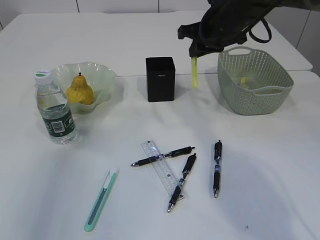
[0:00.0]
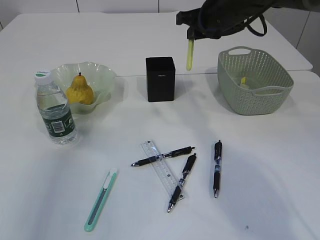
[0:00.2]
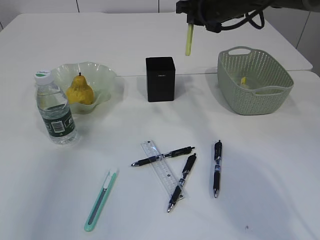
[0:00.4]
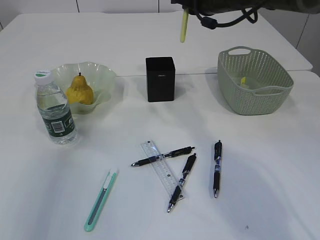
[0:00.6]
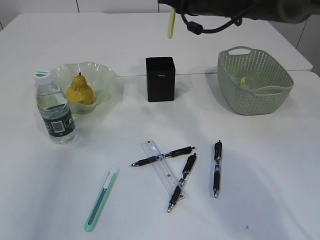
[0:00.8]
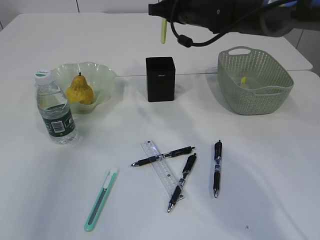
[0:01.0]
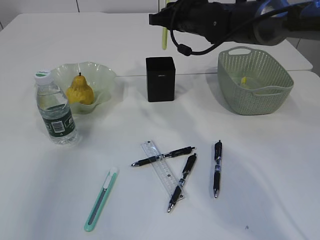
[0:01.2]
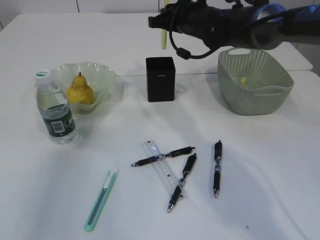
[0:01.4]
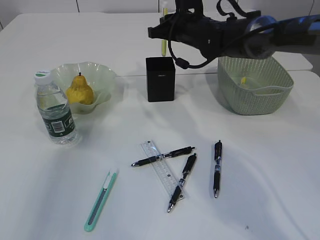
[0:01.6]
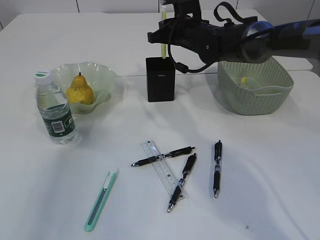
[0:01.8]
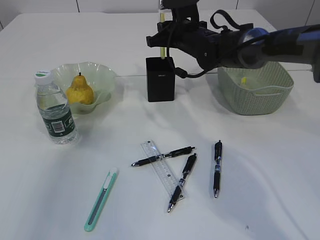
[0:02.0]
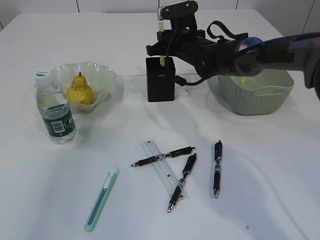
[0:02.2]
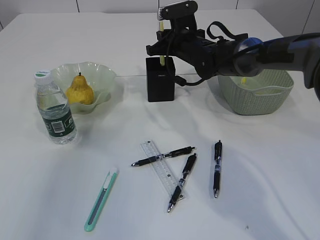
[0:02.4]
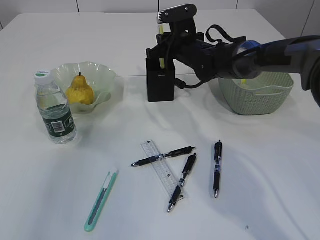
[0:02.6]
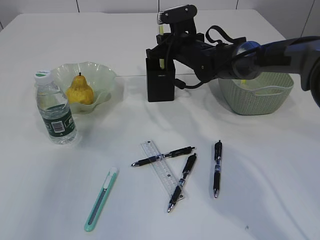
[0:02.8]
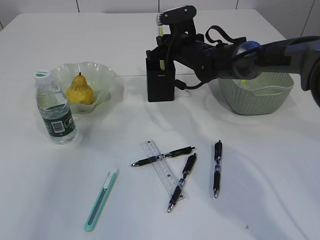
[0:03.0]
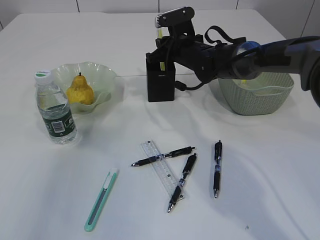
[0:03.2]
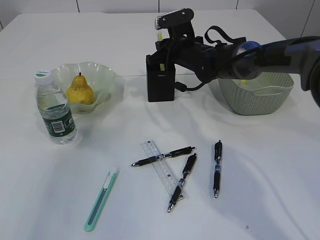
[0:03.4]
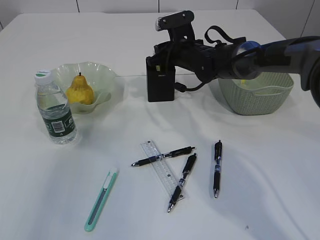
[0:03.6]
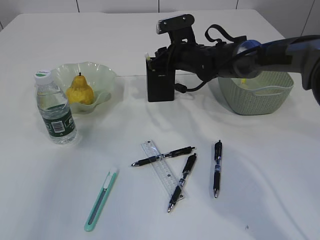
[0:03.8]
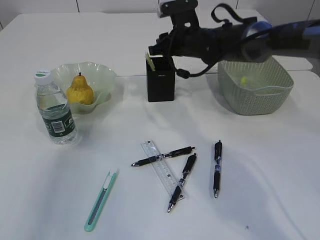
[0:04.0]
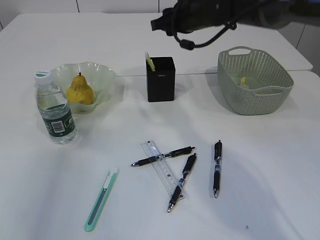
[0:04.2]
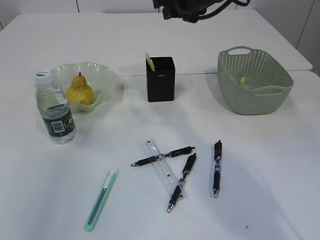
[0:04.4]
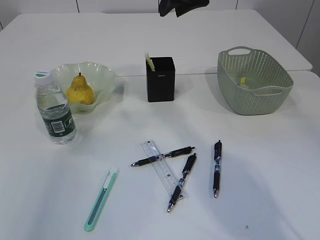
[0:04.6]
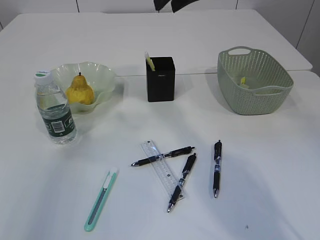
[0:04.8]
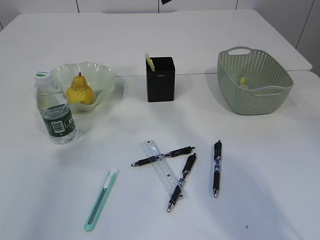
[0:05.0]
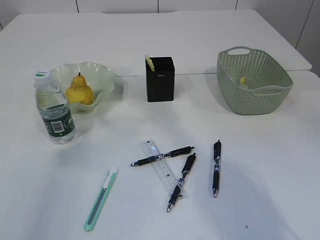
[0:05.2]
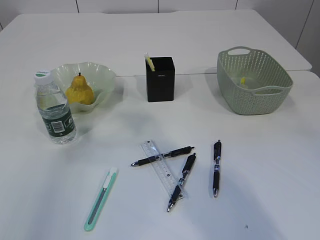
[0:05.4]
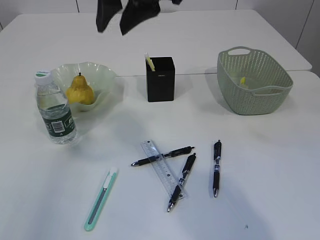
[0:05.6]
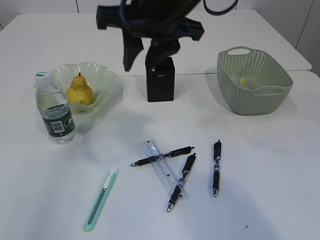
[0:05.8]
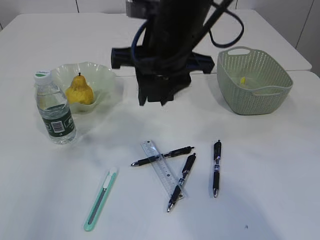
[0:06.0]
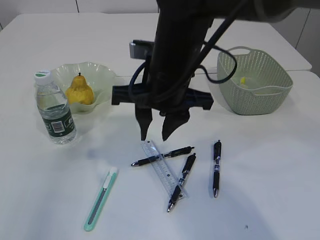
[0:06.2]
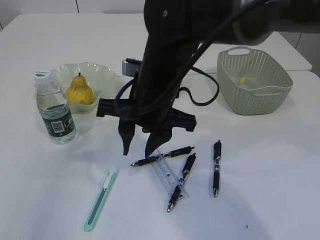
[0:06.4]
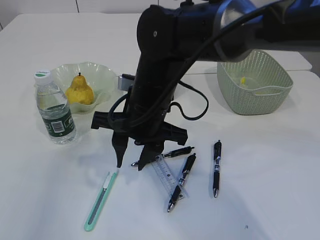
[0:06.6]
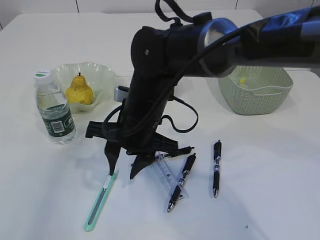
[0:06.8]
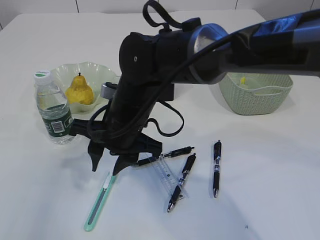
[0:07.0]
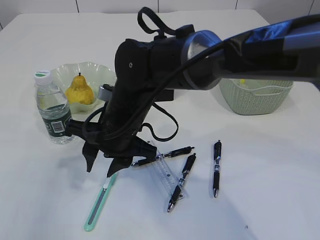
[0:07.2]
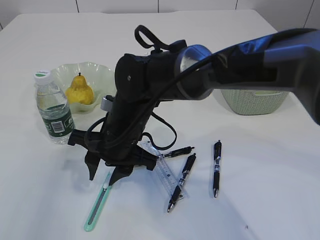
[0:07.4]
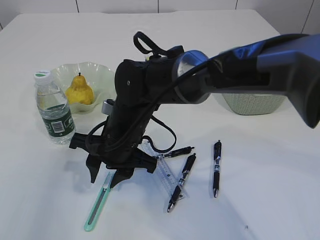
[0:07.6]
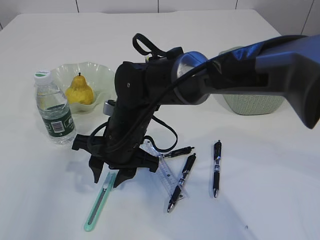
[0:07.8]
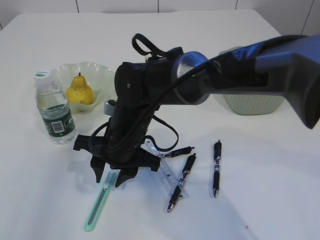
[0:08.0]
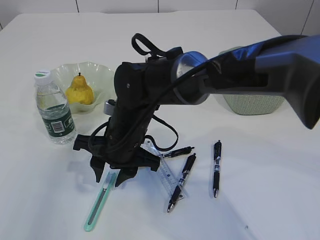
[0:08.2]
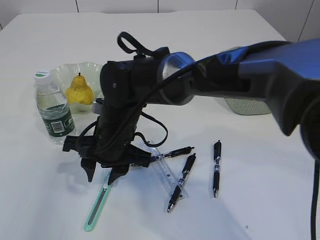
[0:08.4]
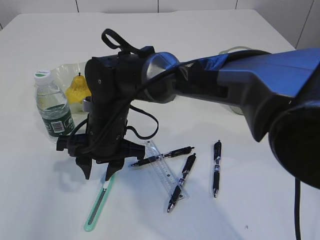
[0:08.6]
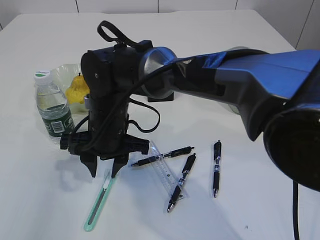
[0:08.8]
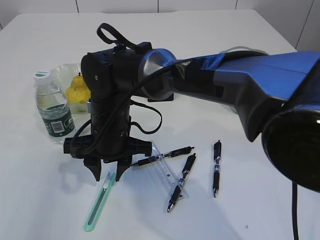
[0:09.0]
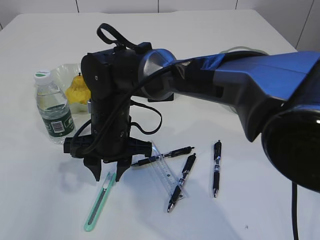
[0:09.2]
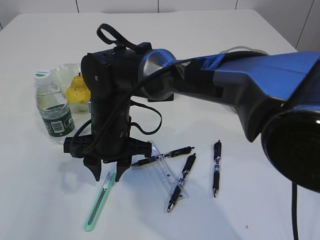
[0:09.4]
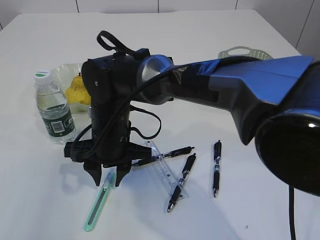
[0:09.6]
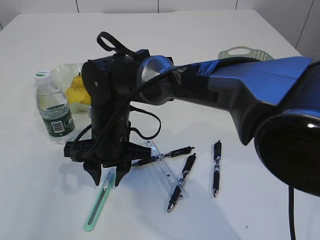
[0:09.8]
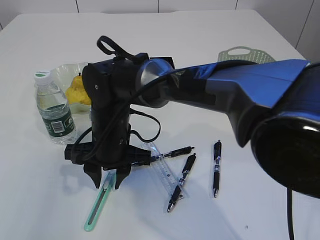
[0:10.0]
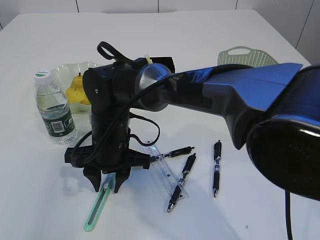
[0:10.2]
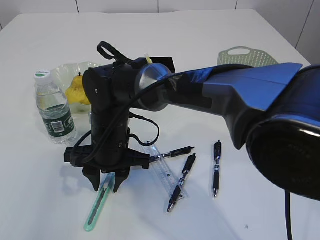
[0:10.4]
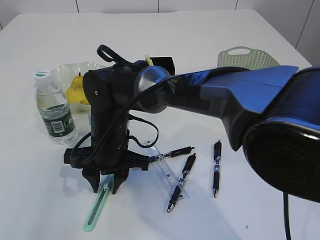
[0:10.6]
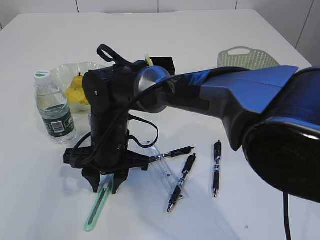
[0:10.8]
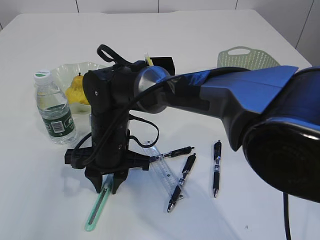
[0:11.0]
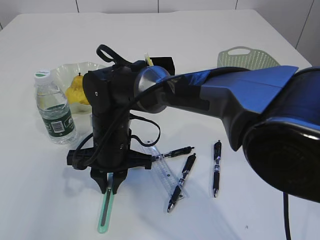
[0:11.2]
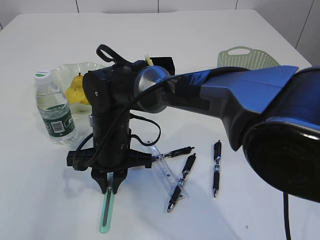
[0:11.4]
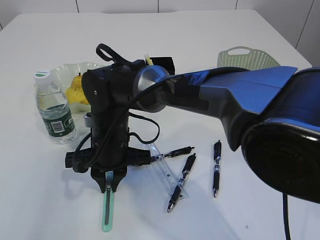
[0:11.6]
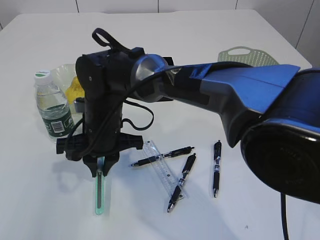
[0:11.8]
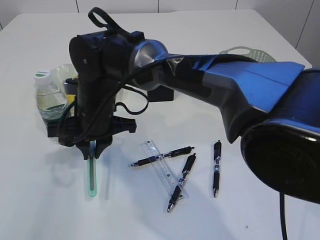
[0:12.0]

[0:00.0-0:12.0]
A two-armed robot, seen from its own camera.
Step, 0:00.0 to 0:04.2: place the yellow knife into the pen holder.
0:00.0 to 0:01.6: The right gripper goes approximately 5 cm to the left and forward.
0:01.6 to 0:03.0: The right gripper goes about 5 cm downward.
0:03.0 to 0:04.4: The right gripper shifts about 15 cm upward, and opens.
0:04.4 to 0:06.0: The right gripper is displaced backward and to the left by some 15 cm.
0:06.0 to 0:07.6: The right gripper moves downward and to the left, some 20 cm.
0:09.0 to 0:10.4: The grippers stay close to where they were, moving slightly.
0:10.4 to 0:12.0: The right gripper changes place by roughly 5 cm, and closes its fingers.

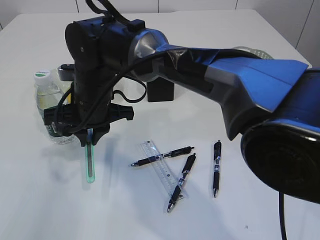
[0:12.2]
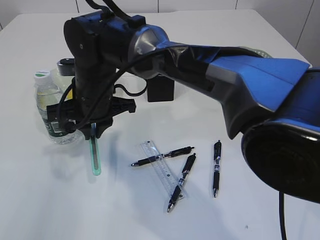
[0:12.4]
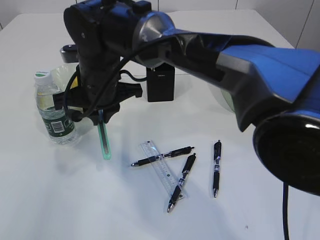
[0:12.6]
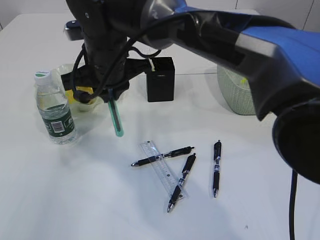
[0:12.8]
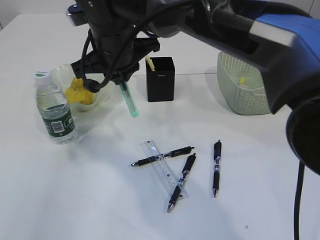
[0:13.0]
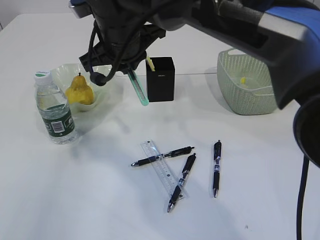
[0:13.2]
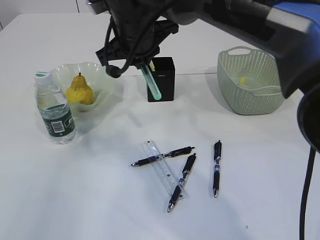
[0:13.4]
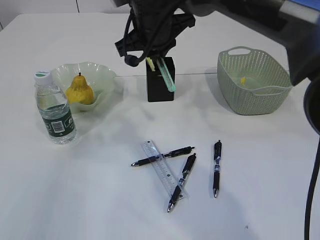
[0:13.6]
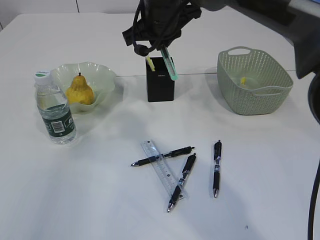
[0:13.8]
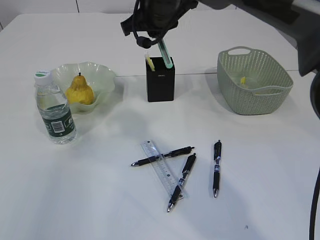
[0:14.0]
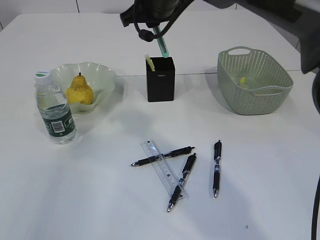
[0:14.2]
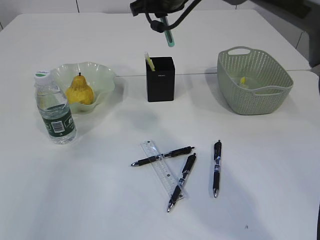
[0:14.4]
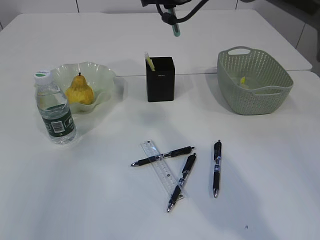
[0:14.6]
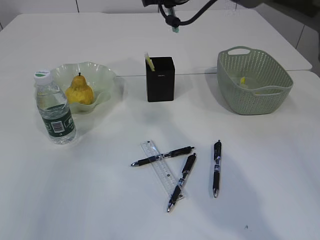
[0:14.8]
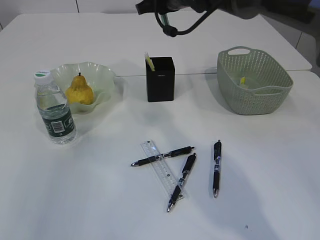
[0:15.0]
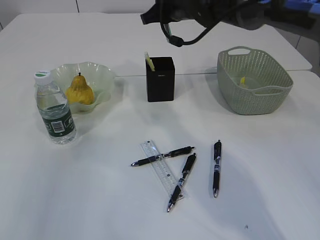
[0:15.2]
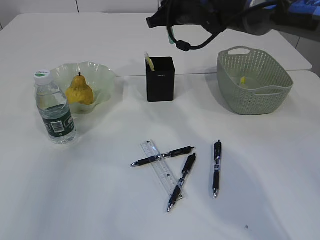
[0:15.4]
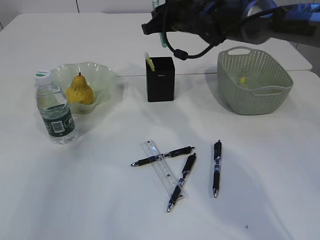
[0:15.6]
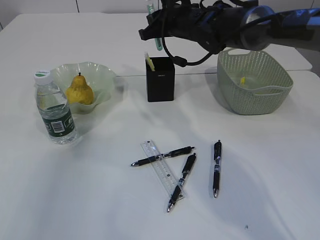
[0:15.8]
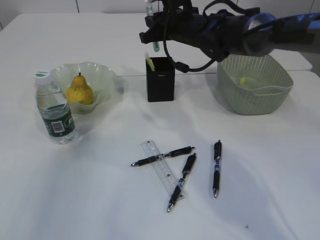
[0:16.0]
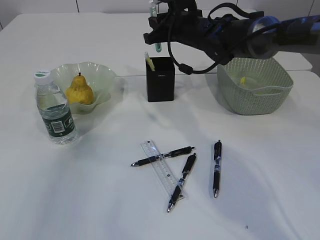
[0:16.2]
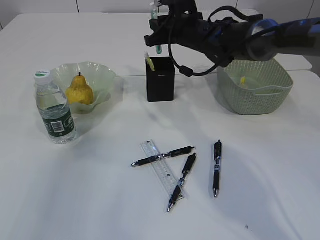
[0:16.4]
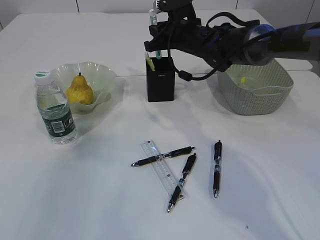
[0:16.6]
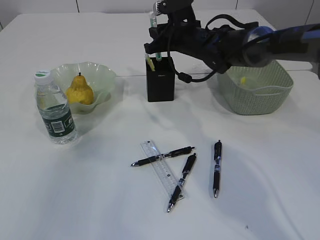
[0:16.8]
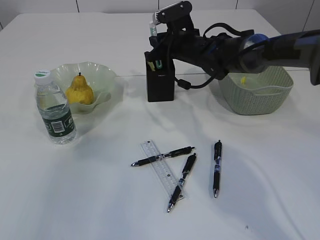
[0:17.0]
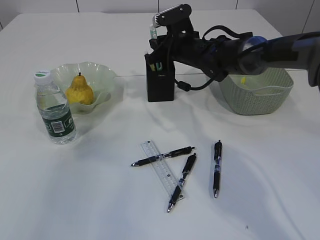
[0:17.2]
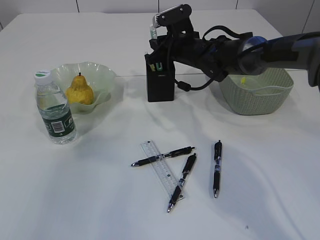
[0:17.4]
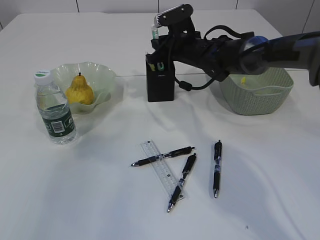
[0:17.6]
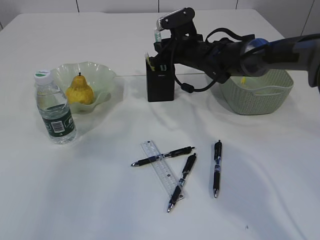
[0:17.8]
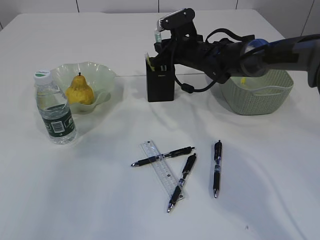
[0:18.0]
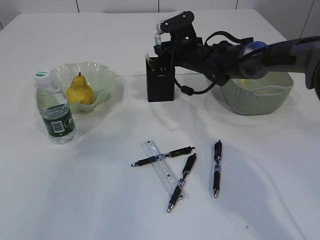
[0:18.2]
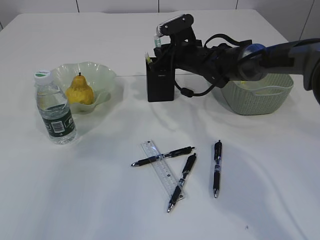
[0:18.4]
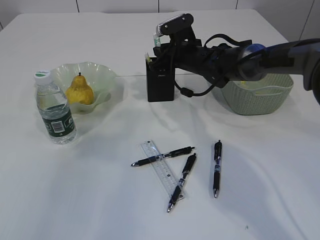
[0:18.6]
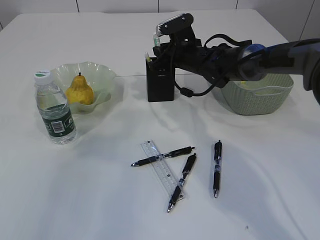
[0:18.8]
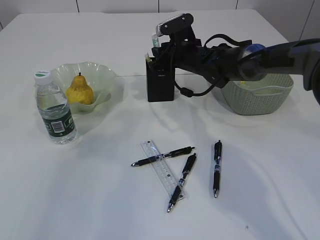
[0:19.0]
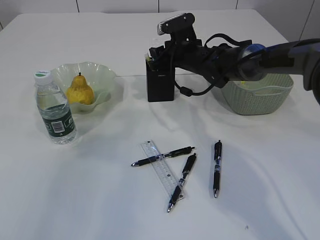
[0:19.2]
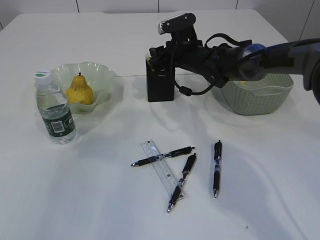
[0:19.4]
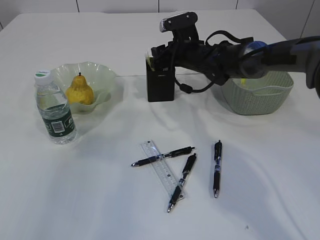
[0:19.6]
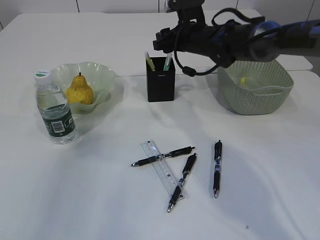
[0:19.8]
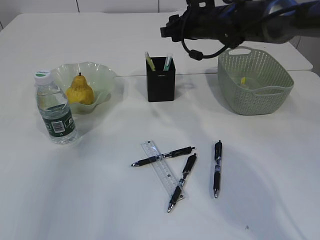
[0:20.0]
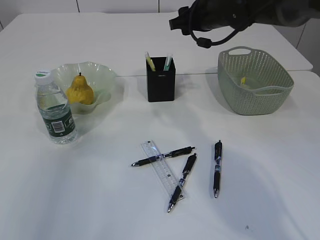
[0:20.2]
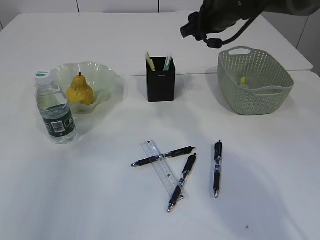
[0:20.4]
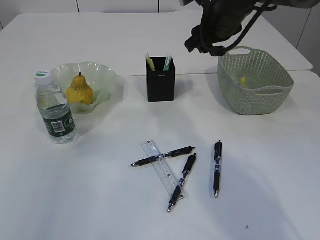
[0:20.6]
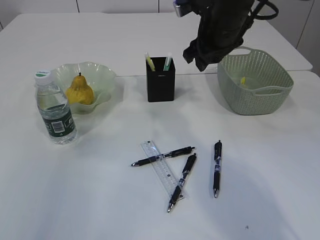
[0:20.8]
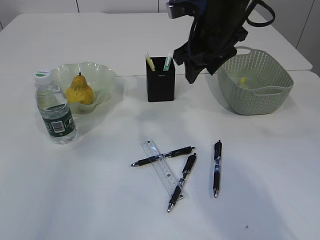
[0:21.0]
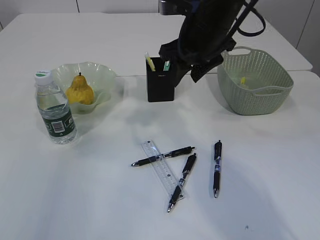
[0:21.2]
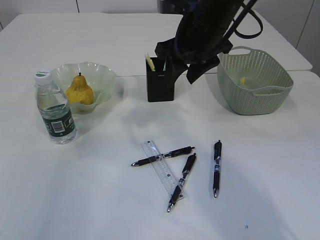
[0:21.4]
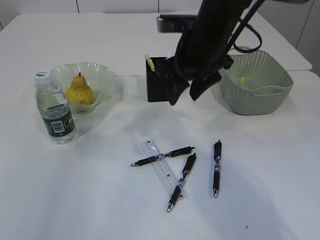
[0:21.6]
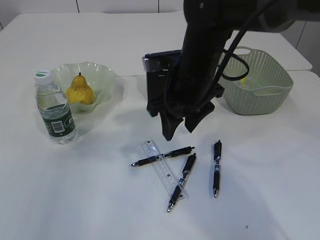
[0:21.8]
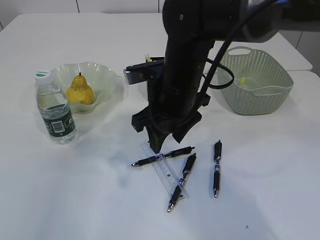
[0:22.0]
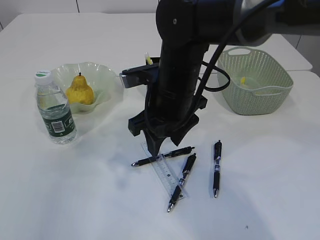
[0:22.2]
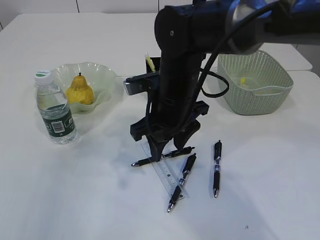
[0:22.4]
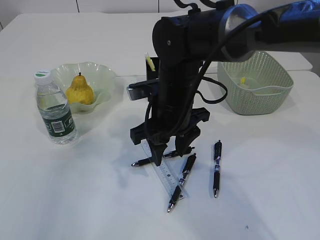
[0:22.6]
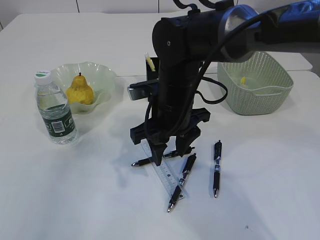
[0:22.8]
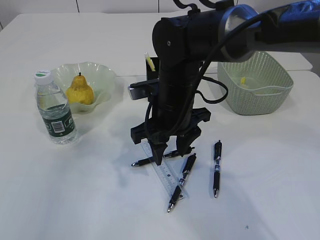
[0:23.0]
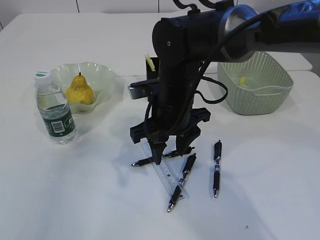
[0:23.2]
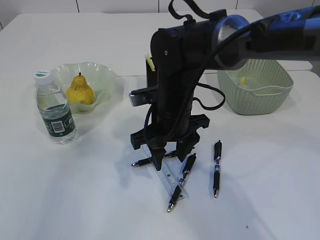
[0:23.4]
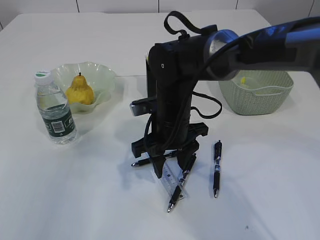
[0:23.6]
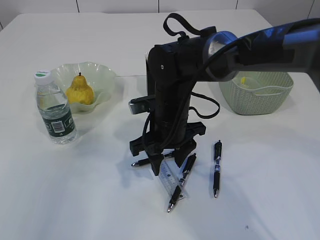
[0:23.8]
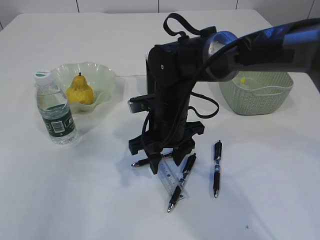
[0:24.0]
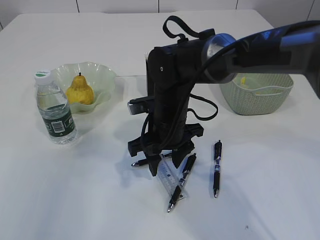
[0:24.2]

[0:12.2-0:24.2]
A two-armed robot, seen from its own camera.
Step, 0:12.4 to 0:19.8: Place the blue knife into the pen holder.
0:12.2 to 0:13.8: The right gripper heads to the right, upward and forward, covering roughly 15 cm.
0:13.8 to 0:15.2: The right gripper heads forward and to the right, covering roughly 10 cm.
0:15.2 to 0:16.6: The right gripper is displaced downward by about 5 cm.
0:16.6 to 0:18.2: The grippers make only small movements.
0:18.2 to 0:19.8: The right gripper opens up.
0:19.8 to 0:21.2: The right gripper travels backward and upward by roughly 15 cm.
0:21.2 to 0:22.6: The right gripper travels downward, to the left and backward by roughly 15 cm.
0:22.6 to 0:24.2: The grippers make only small movements.
